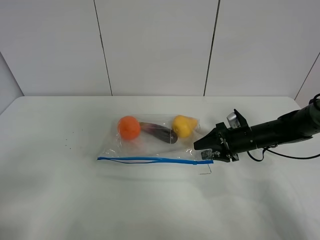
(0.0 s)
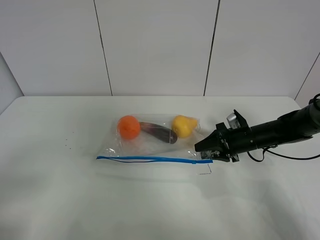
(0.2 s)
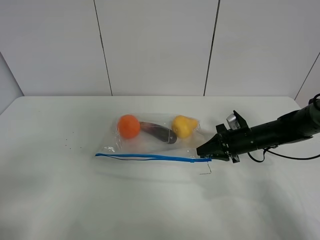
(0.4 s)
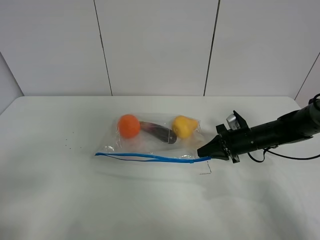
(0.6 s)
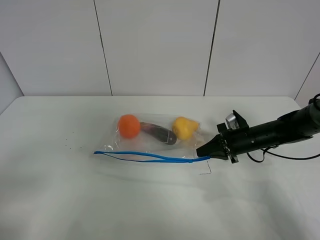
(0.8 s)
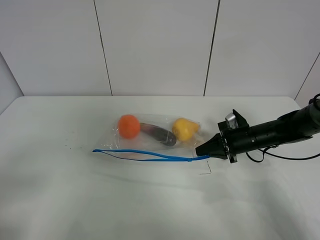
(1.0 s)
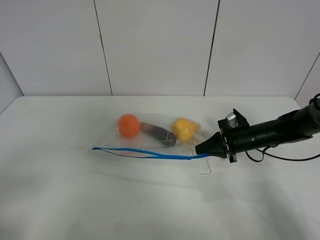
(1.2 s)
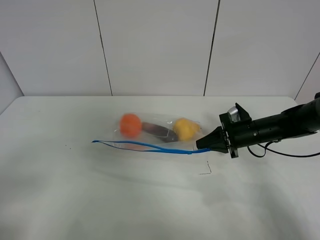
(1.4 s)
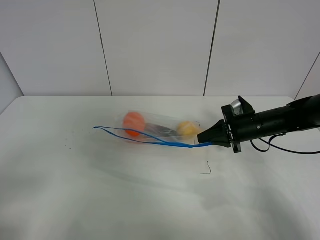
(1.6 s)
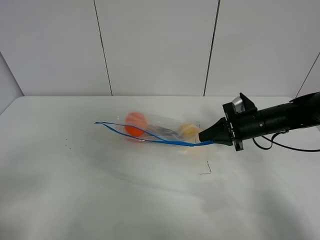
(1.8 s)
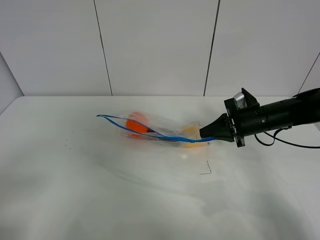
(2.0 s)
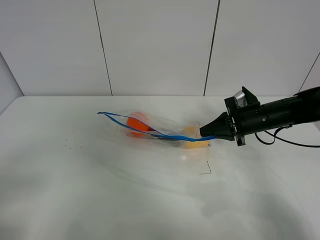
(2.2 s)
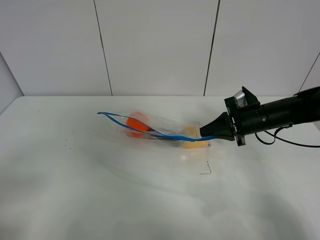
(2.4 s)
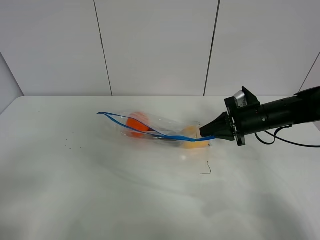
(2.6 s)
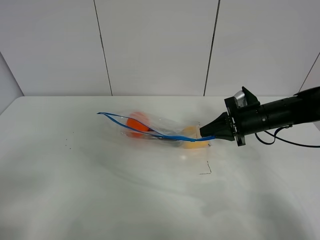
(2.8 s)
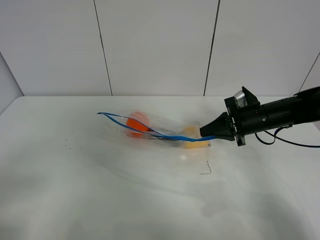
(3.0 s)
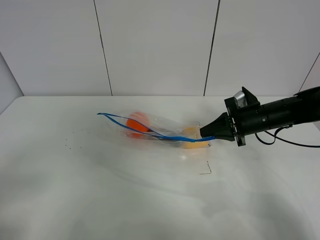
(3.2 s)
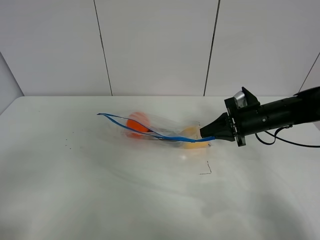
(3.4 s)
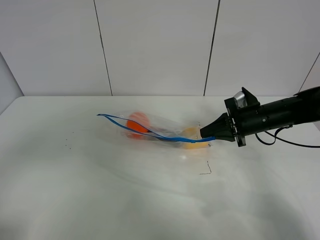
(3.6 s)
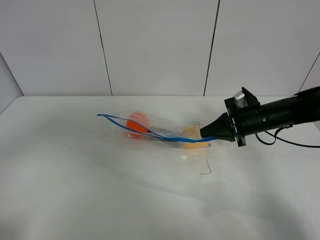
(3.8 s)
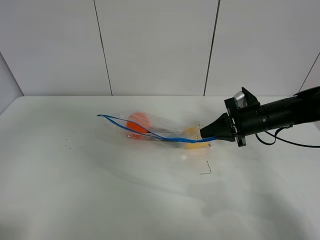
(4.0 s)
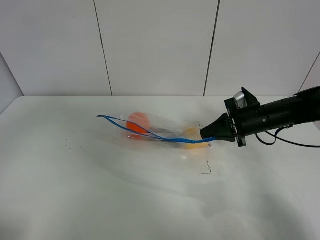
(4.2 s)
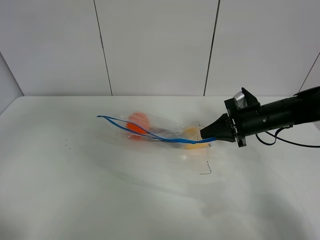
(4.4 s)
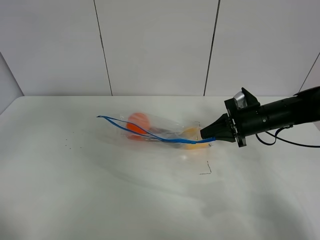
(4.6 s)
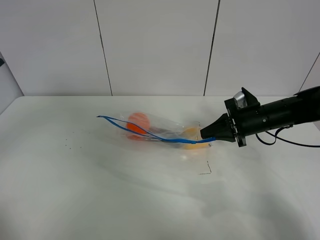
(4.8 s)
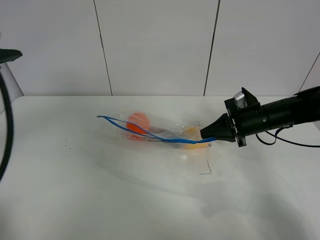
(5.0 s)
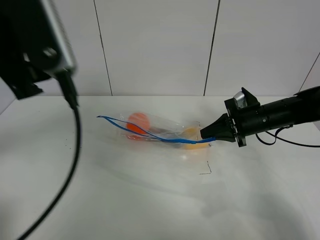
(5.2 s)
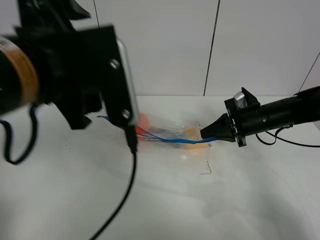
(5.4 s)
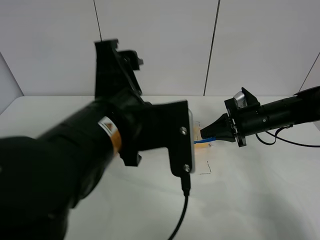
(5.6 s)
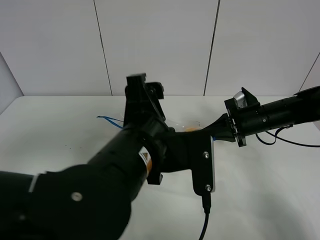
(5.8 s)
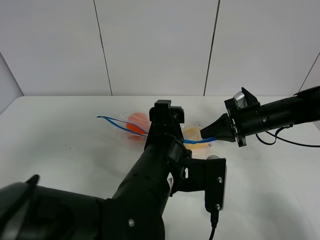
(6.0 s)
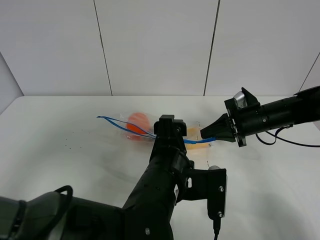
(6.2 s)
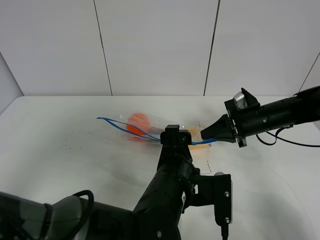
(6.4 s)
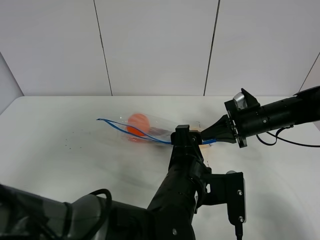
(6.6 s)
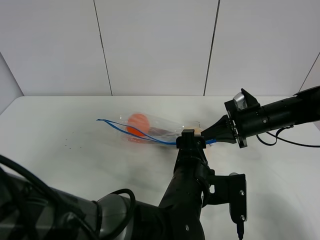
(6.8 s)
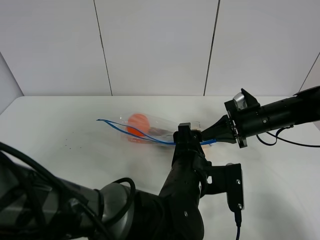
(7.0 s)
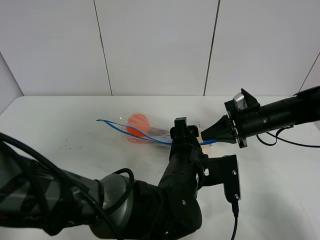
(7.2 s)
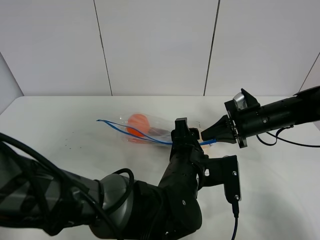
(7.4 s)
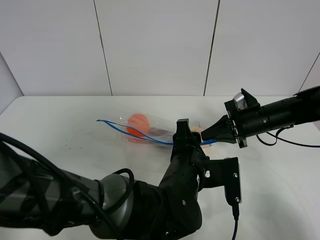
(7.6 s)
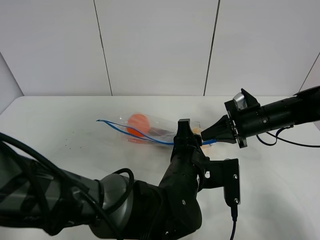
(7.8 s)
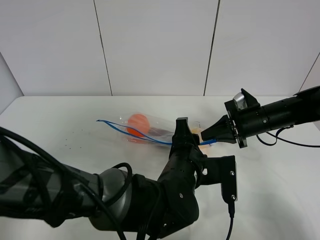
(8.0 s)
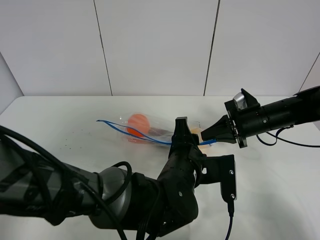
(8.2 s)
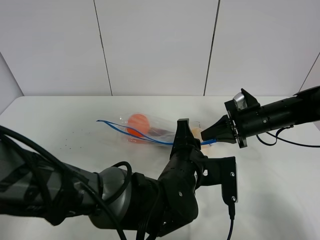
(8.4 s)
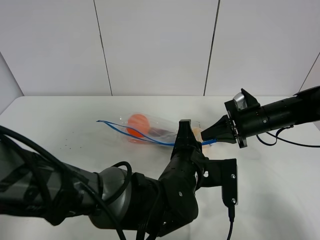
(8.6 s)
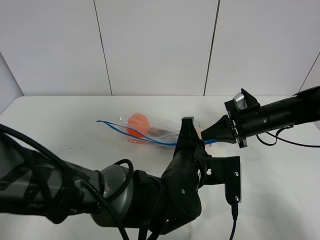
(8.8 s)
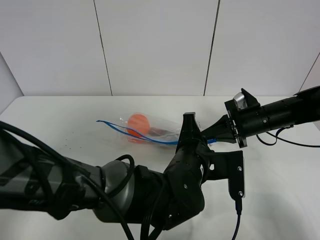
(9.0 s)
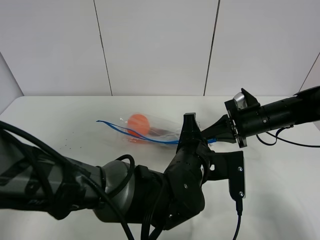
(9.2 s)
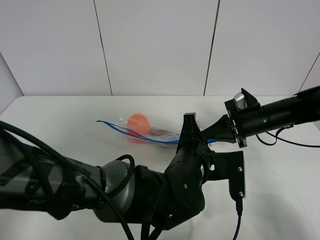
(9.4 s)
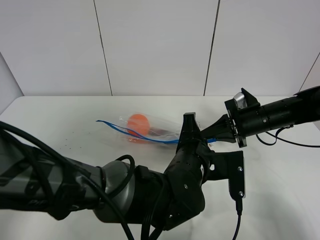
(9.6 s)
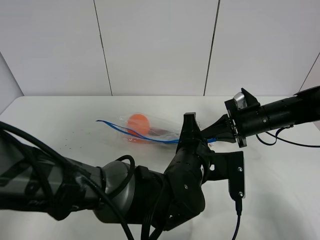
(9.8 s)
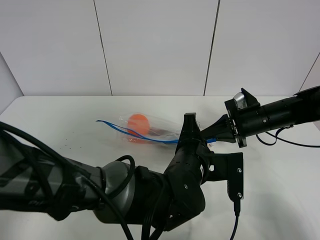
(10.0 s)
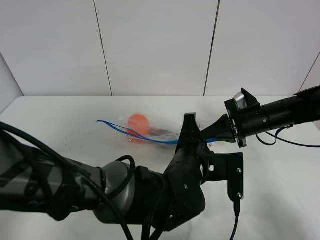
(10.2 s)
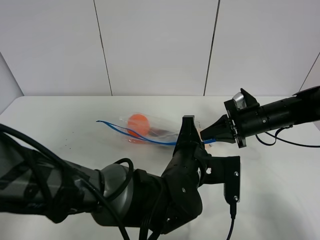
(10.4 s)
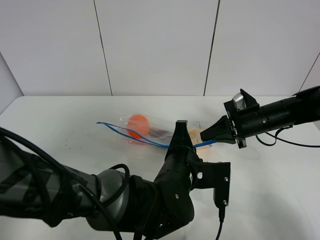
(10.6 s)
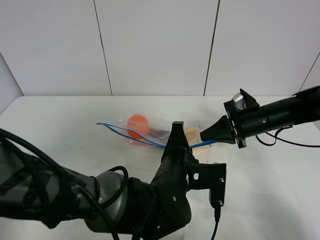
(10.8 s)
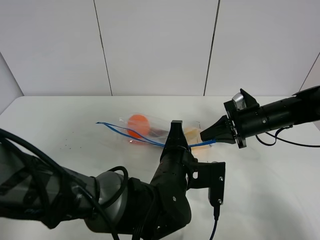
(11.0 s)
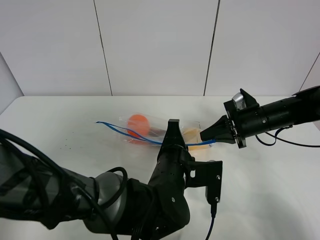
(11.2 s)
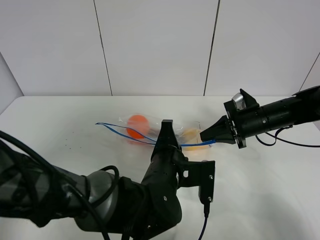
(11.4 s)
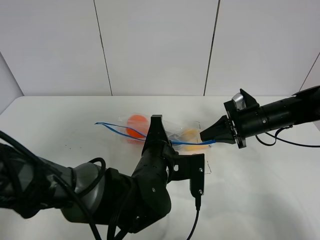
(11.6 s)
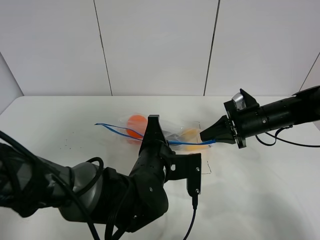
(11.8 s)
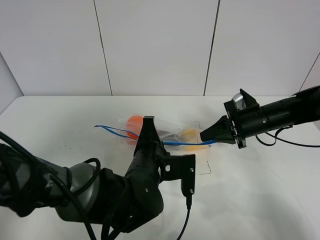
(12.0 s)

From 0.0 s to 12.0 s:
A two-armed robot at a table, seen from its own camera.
Step, from 0.8 s to 2.4 s: Lift the fruit bag with your right gripper.
From 0.0 s to 1.6 s: The right gripper travels upward by about 5 cm, and closes.
From 1.6 s to 3.0 s: The grippers make only small movements.
From 3.0 s to 4.4 s: The left gripper goes about 20 cm upward and forward.
From 4.4 s to 6.0 s: The left gripper is displaced to the right and downward by roughly 40 cm.
From 6.0 s to 7.6 s: The left gripper travels downward by about 5 cm.
From 7.6 s to 9.0 s: The left gripper closes up.
From 9.0 s to 10.4 s: Neither gripper changes place.
From 10.4 s to 12.0 s: The left gripper moves to the left, roughly 5 cm.

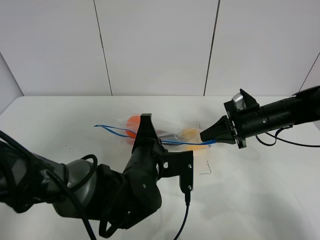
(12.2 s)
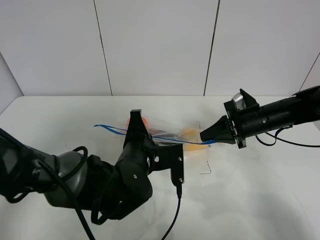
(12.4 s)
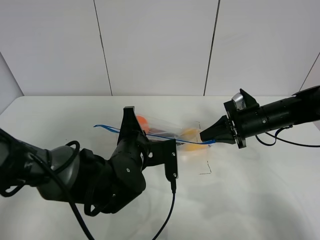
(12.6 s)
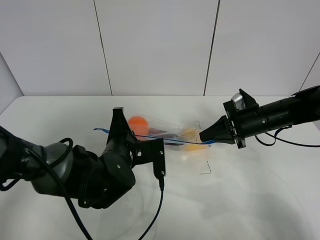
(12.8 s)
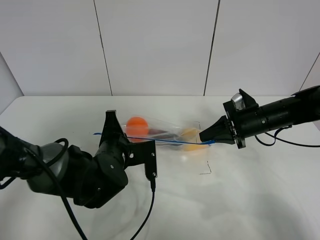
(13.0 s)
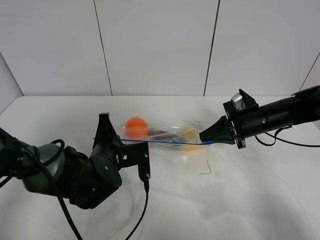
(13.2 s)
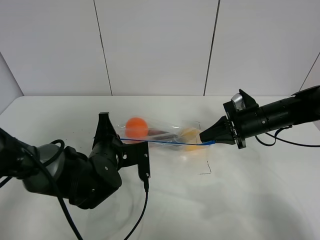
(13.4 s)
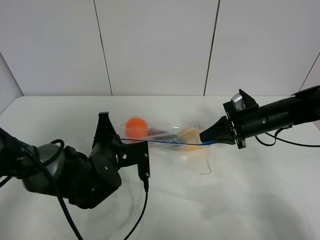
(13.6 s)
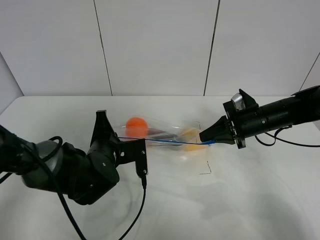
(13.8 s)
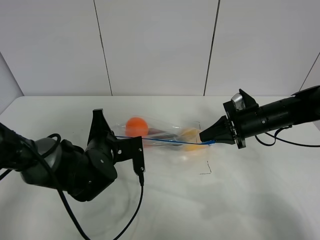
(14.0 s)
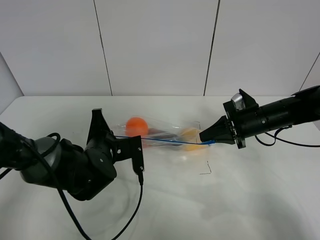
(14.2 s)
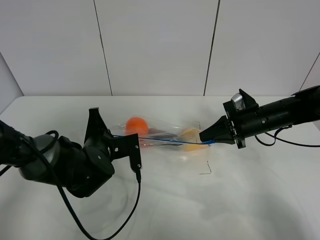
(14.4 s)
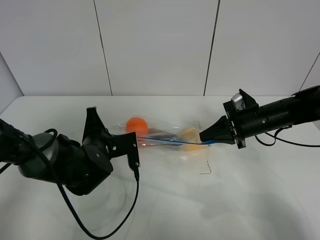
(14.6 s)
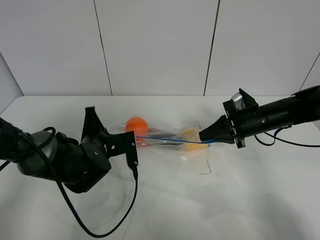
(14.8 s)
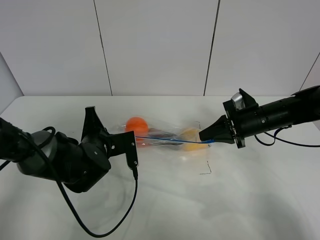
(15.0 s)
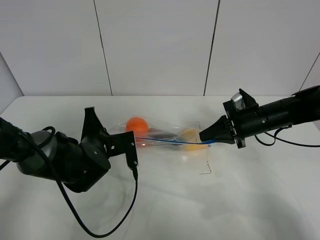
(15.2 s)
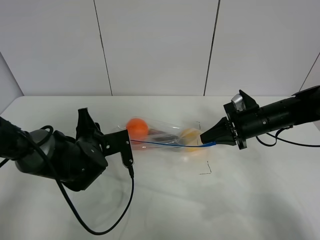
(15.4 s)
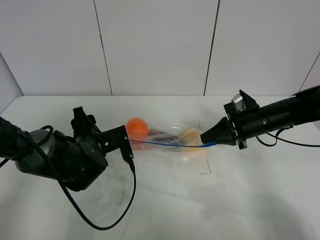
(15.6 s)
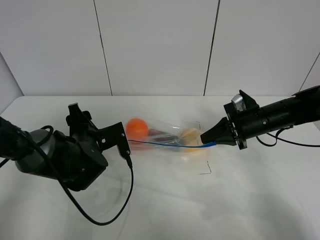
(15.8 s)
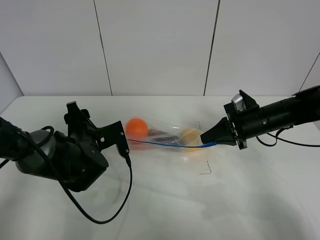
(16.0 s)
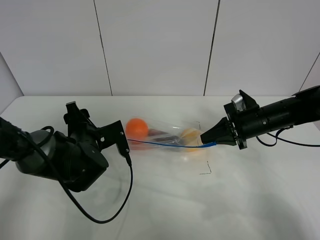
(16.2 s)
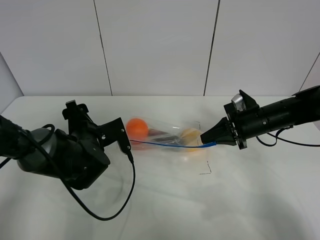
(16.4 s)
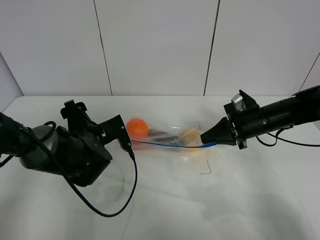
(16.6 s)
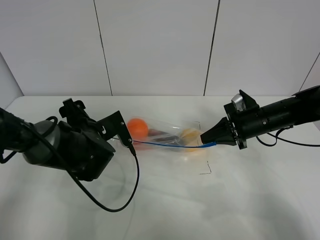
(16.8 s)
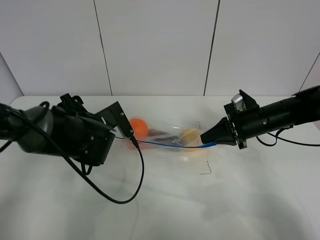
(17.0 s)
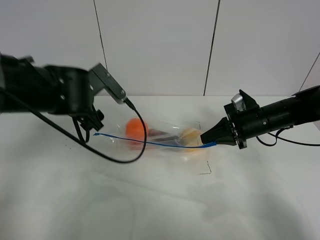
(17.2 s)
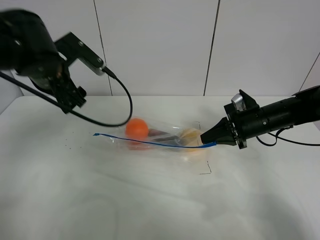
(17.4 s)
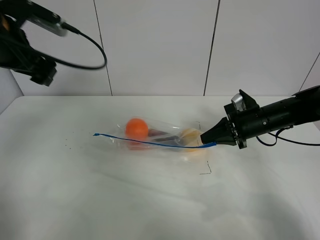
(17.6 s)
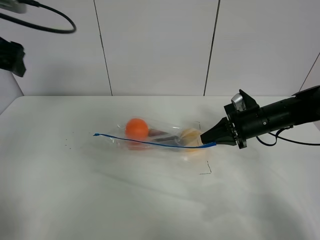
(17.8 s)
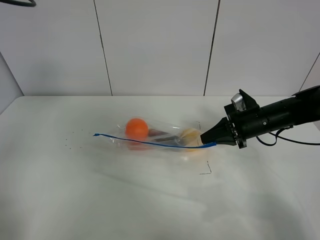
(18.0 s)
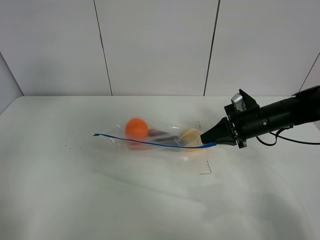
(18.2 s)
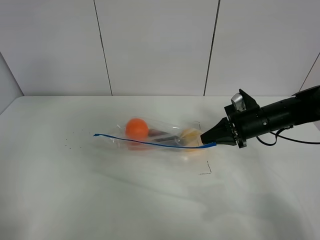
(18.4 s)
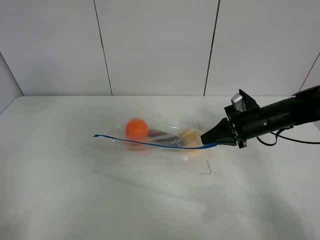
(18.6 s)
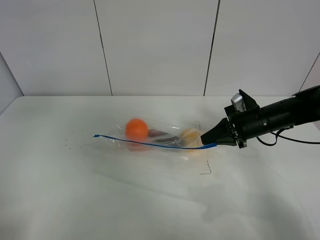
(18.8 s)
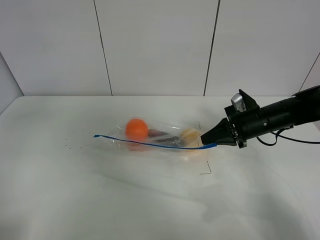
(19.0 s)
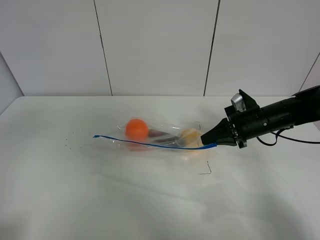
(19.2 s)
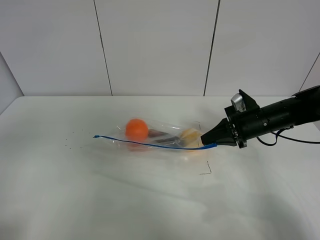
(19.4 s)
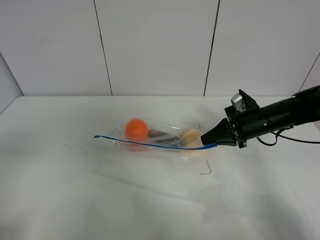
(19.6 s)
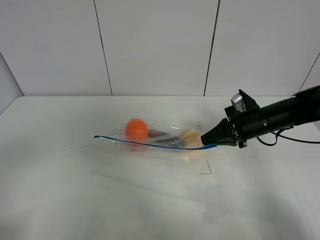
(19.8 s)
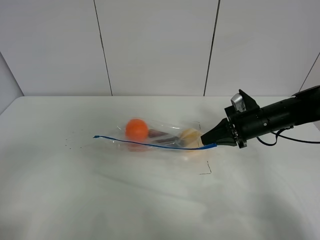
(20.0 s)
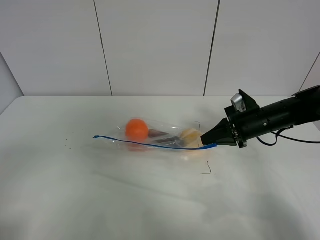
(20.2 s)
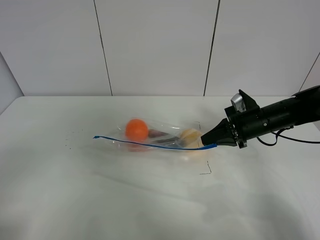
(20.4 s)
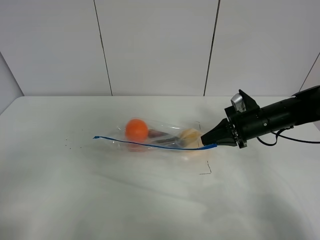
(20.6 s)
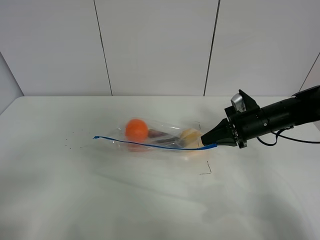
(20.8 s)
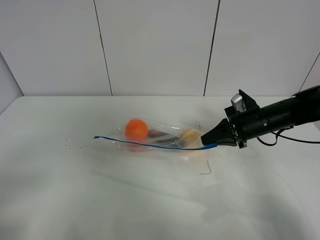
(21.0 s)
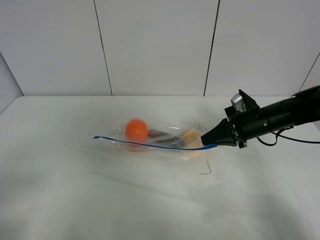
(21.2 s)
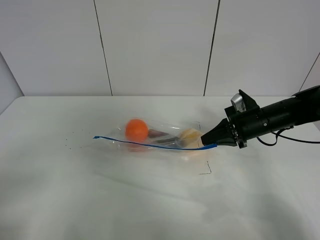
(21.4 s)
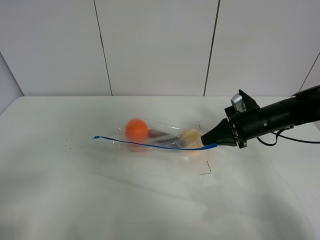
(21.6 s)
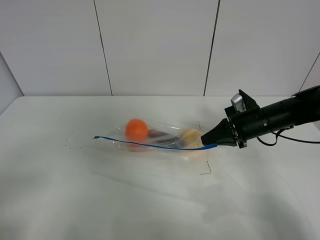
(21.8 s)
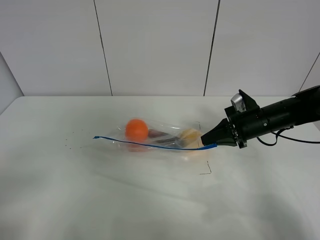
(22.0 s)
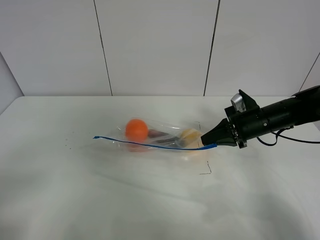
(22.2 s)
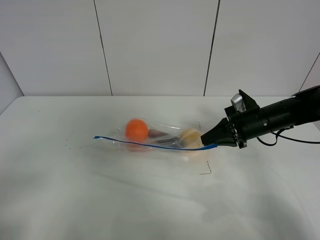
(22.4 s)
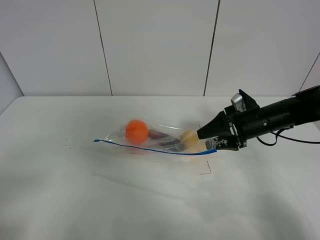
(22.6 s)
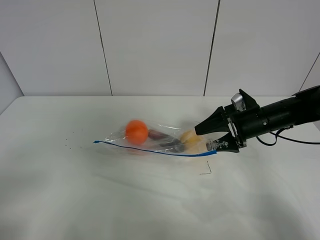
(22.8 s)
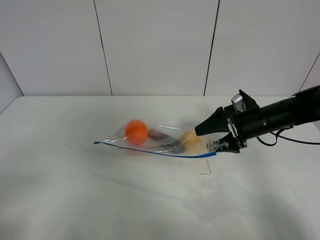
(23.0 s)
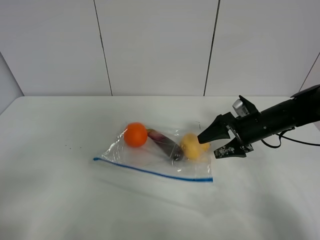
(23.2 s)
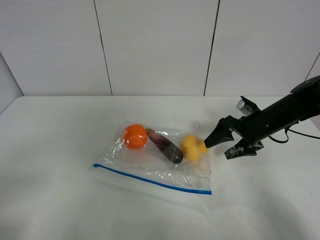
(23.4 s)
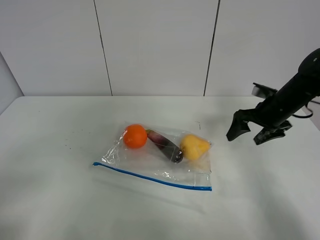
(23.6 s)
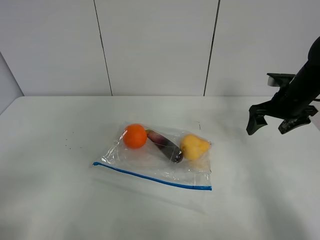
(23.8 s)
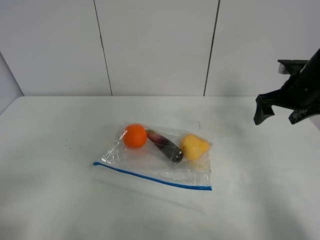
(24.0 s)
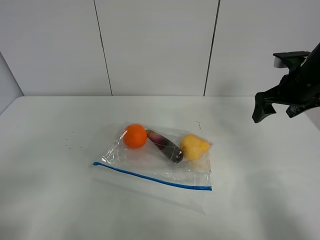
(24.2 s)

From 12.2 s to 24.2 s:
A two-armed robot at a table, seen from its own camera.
Step, from 12.2 s to 15.8 s: Pull the fruit bag with left gripper.
From 12.2 s to 13.8 s: The left gripper is displaced to the left by approximately 10 cm.
From 13.8 s to 15.2 s: The grippers stay close to where they were, moving slightly.
From 15.2 s to 16.6 s: The left gripper opens its fingers.
From 16.6 s to 18.2 s: The left gripper goes some 35 cm upward and to the left.
From 18.2 s to 19.8 s: The left gripper travels backward by roughly 25 cm.
From 21.2 s to 22.6 s: The right gripper opens up.
From 22.6 s to 24.2 s: The right gripper goes approximately 10 cm upward and to the right.
